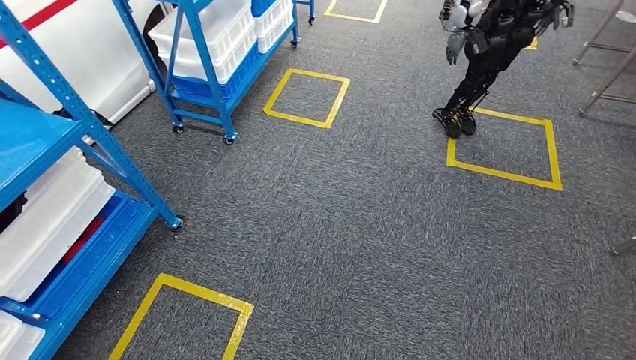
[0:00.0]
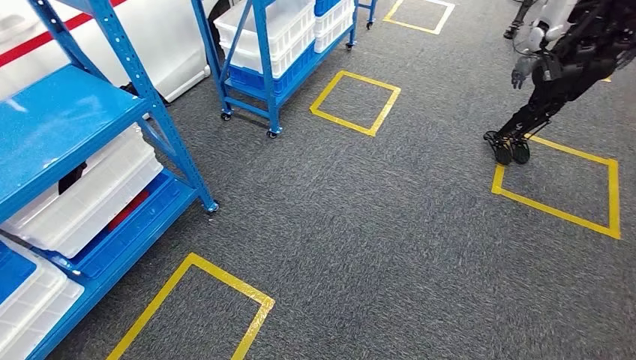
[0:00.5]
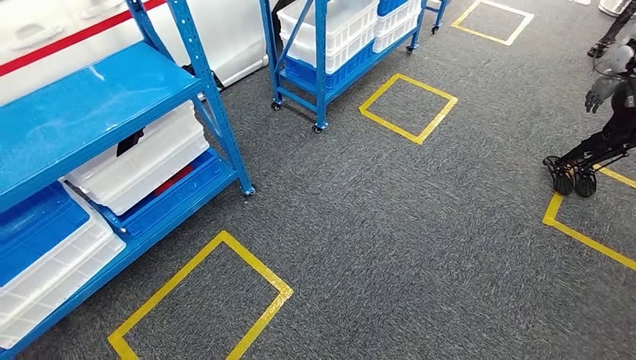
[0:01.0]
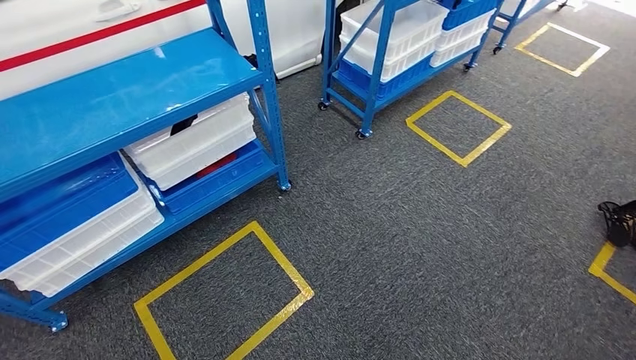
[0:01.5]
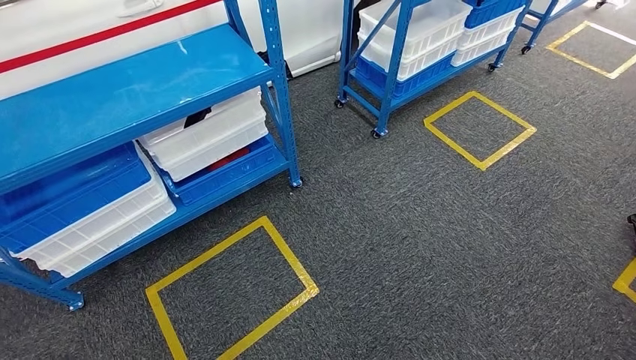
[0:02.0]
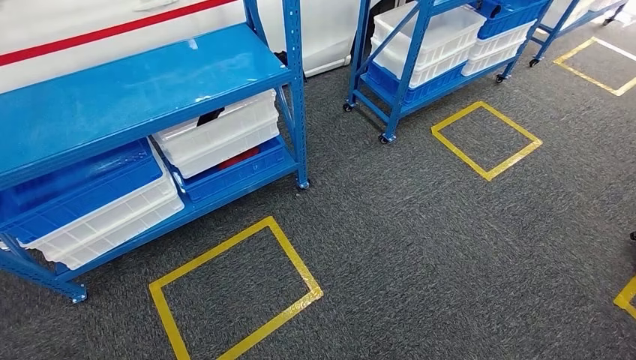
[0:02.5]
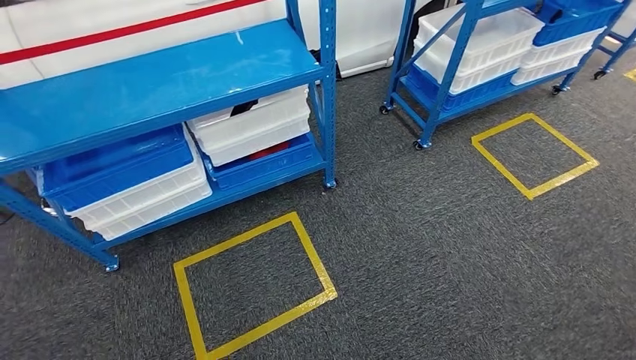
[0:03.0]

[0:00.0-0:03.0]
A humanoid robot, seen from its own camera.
Step, 0:00.0 to 0:03.0: Move to the initial position of the shelf.
